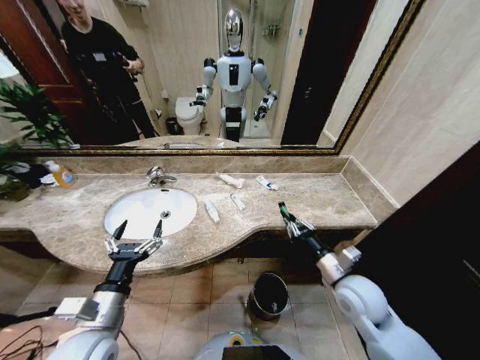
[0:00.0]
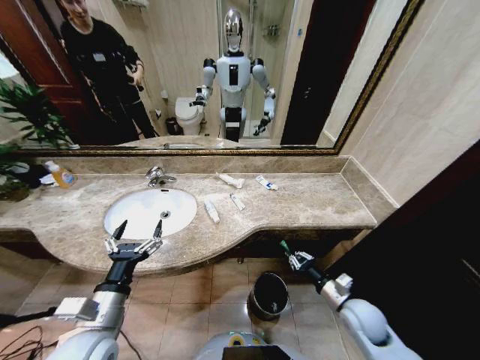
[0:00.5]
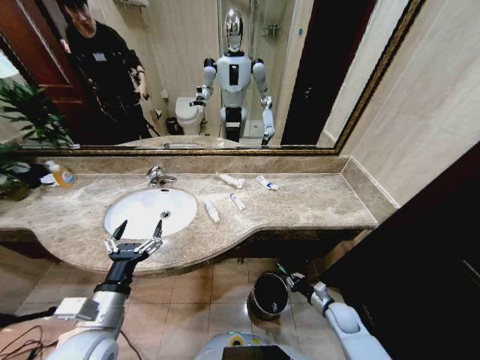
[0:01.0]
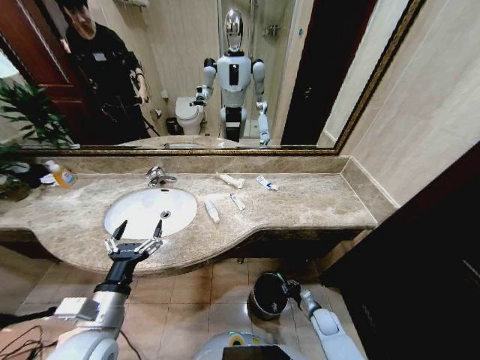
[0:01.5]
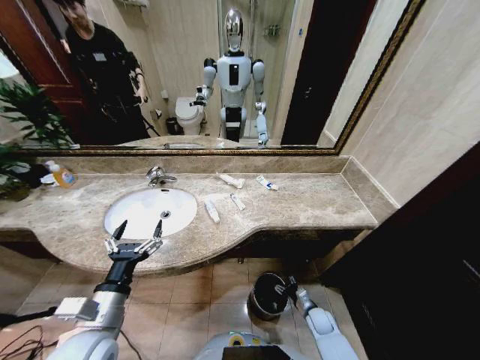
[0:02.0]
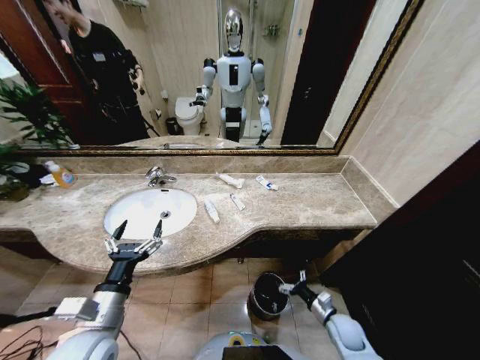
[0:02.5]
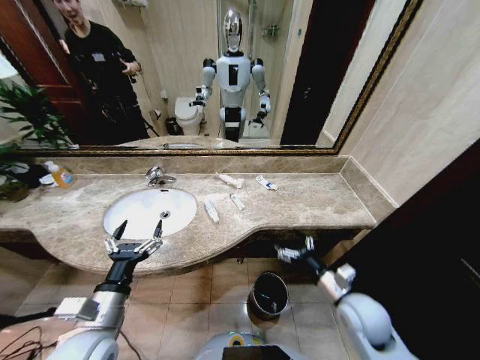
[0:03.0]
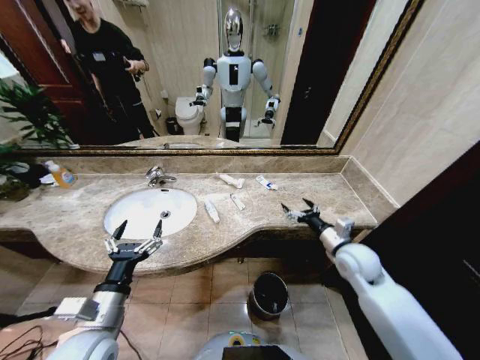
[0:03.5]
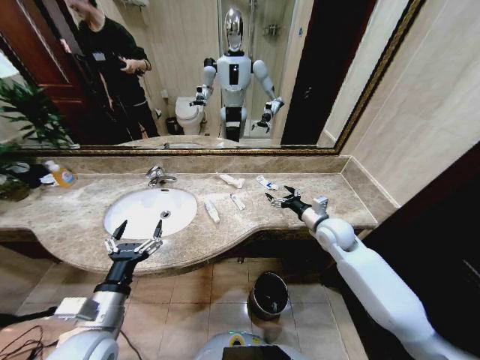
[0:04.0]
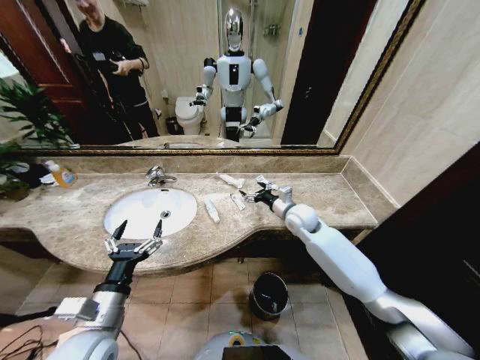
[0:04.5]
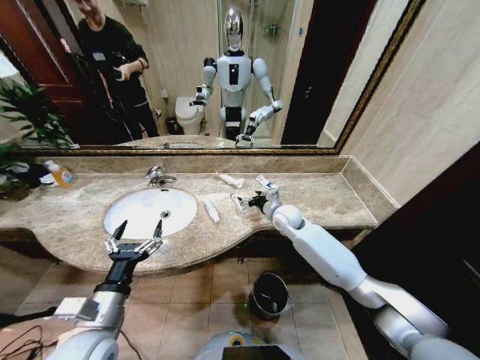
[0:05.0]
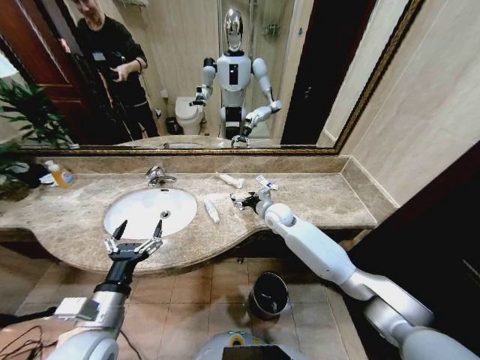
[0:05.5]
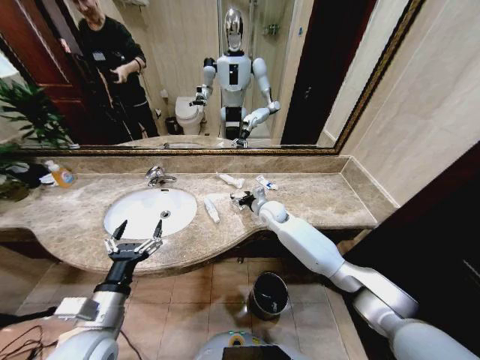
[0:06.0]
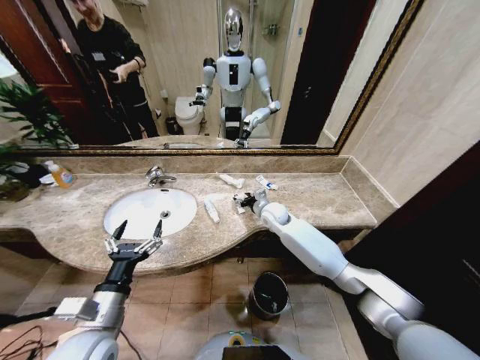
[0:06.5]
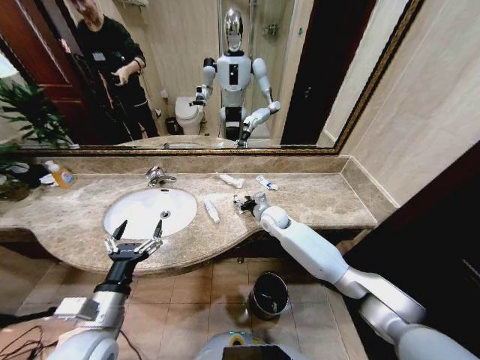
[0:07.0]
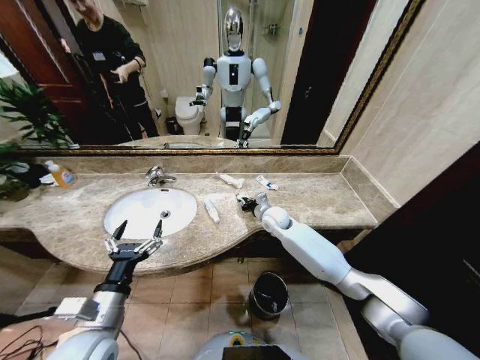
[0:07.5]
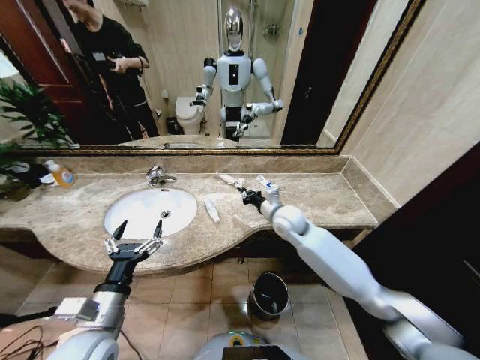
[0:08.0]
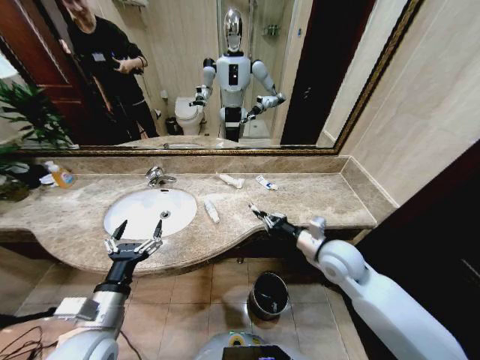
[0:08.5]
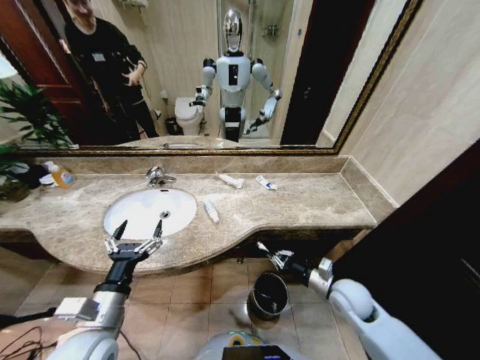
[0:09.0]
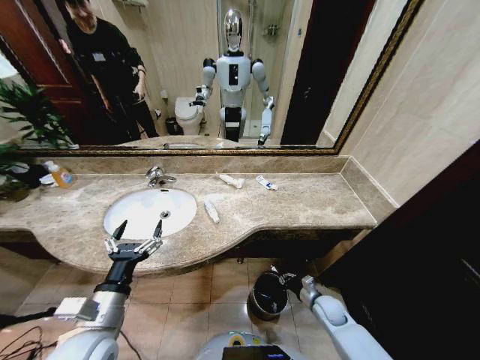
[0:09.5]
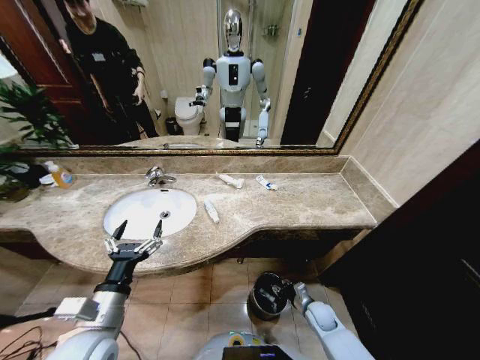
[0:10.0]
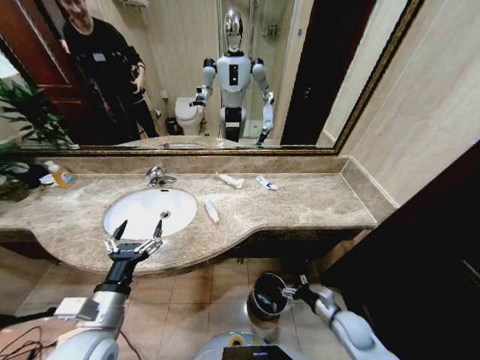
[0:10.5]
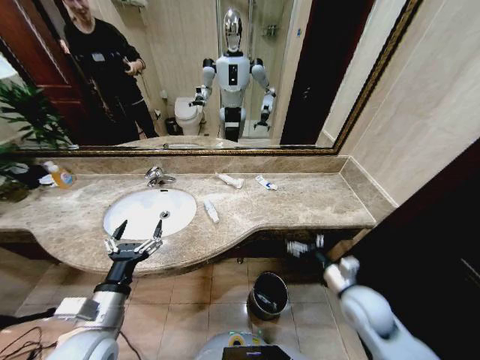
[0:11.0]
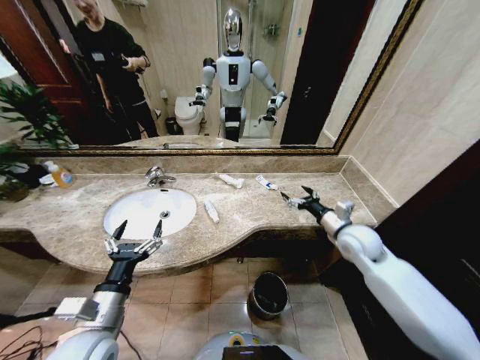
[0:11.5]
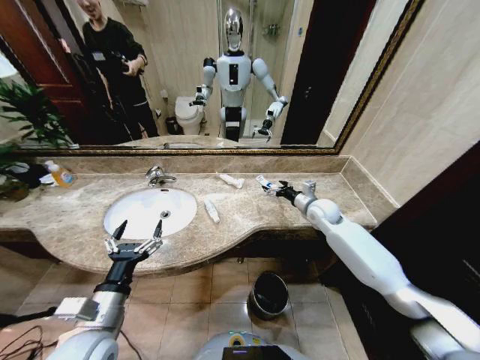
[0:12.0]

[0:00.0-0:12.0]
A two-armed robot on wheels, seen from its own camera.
Task of the whole recording: Pick up the trash from the sink and place it in the trash bin.
0:00.0 to 0:02.0: The right gripper moves downward, some 35 cm, and opens its fingers.
0:02.0 to 0:04.0: The right gripper goes roughly 40 cm upward and forward, and opens its fingers.
0:04.0 to 0:06.0: The right gripper is displaced to the left and forward by roughly 20 cm.
0:06.0 to 0:08.0: The right gripper is displaced backward and upward by about 10 cm, and closes up.
0:08.0 to 0:10.0: The right gripper shifts about 40 cm downward, backward and to the right.
0:10.0 to 0:12.0: The right gripper travels upward and forward by roughly 40 cm, and opens its fingers.

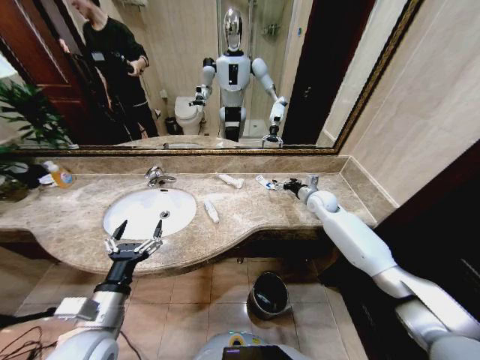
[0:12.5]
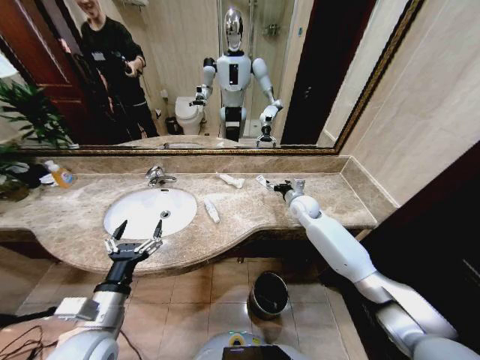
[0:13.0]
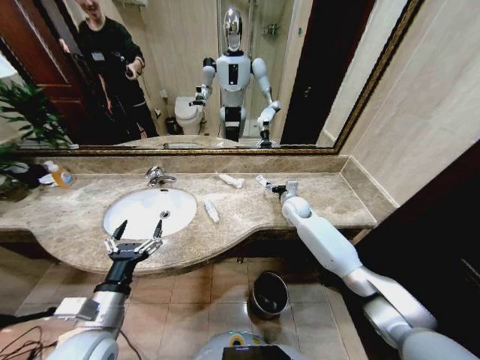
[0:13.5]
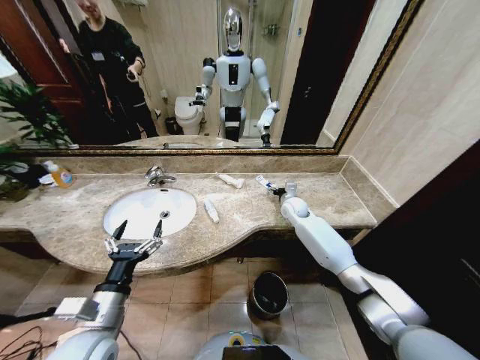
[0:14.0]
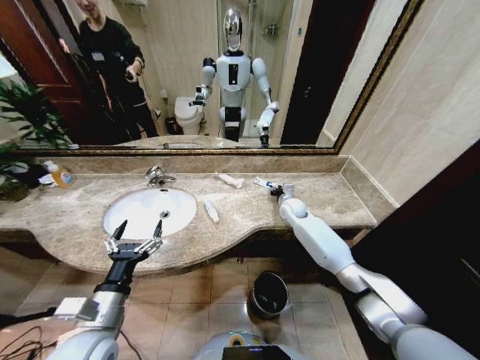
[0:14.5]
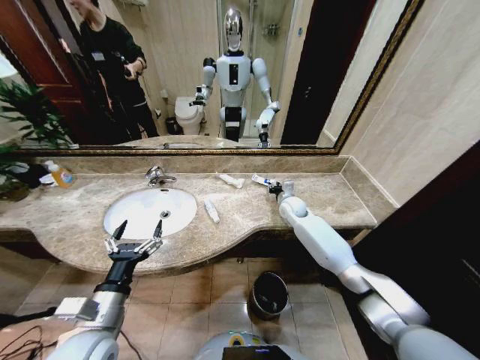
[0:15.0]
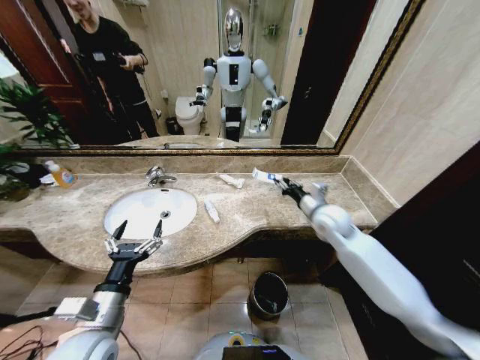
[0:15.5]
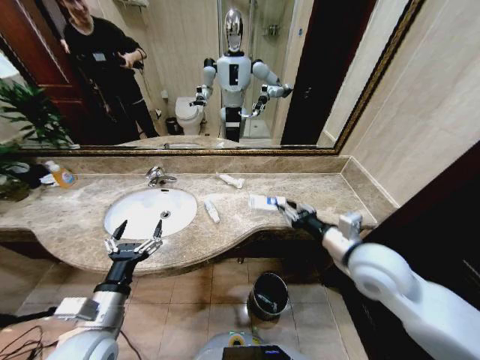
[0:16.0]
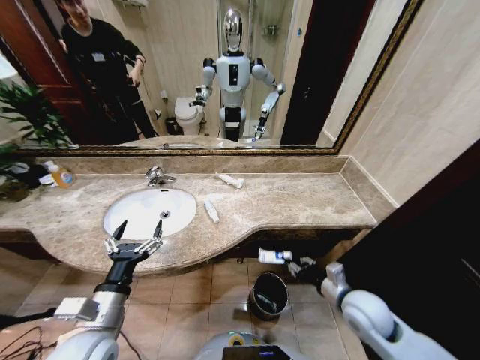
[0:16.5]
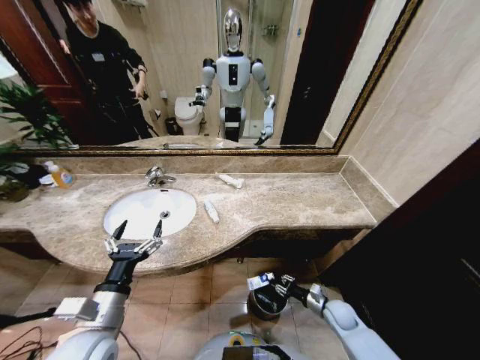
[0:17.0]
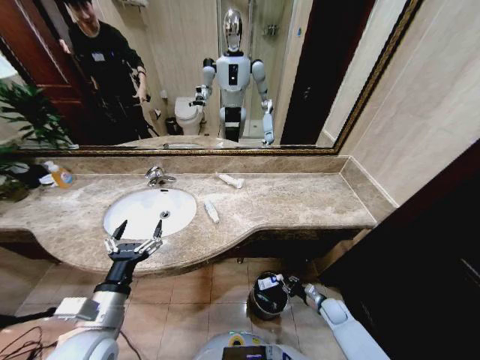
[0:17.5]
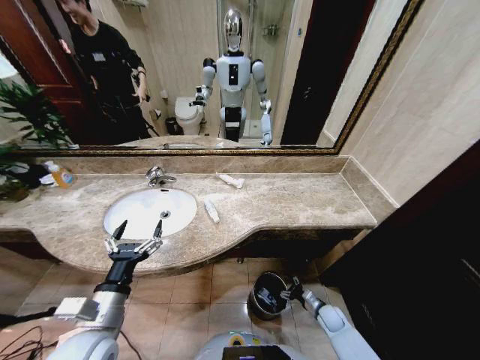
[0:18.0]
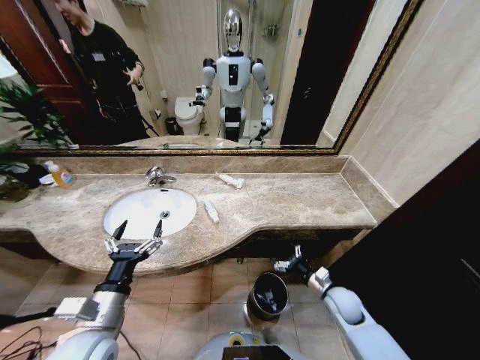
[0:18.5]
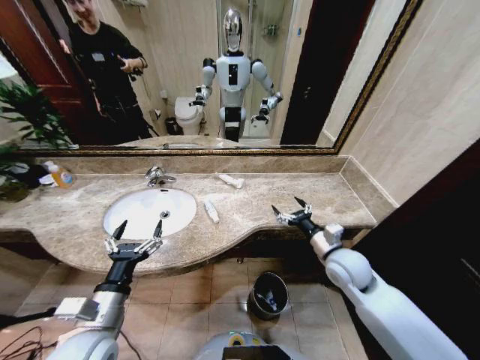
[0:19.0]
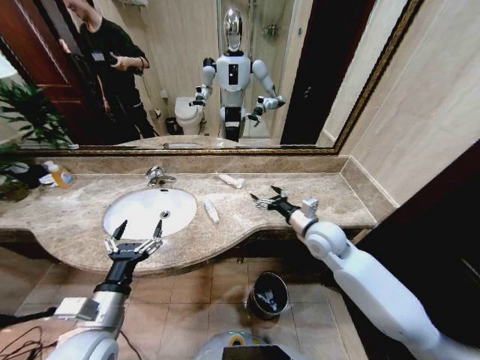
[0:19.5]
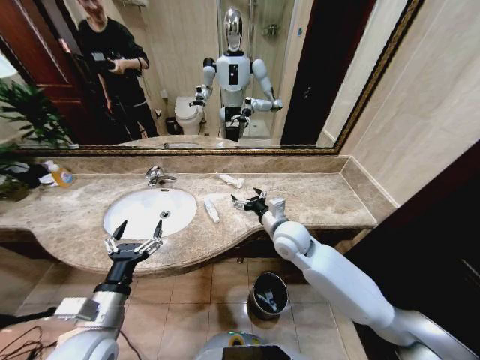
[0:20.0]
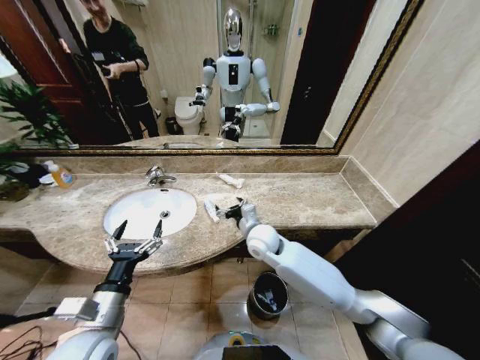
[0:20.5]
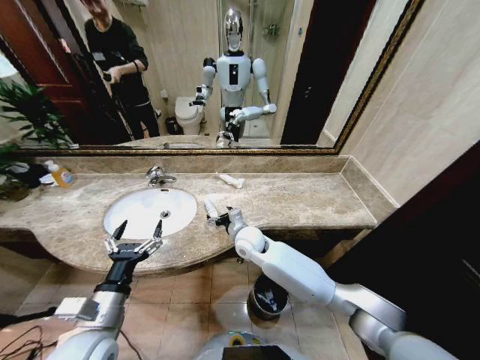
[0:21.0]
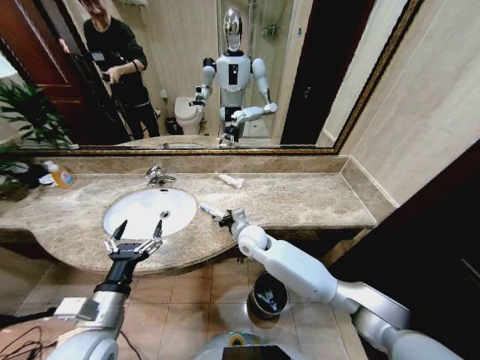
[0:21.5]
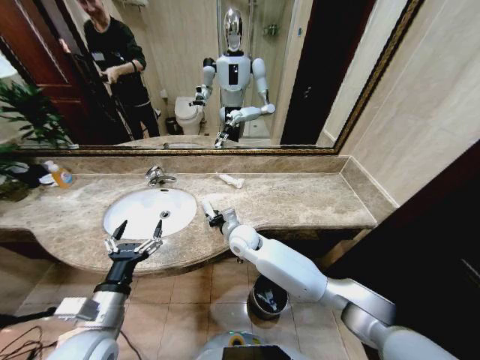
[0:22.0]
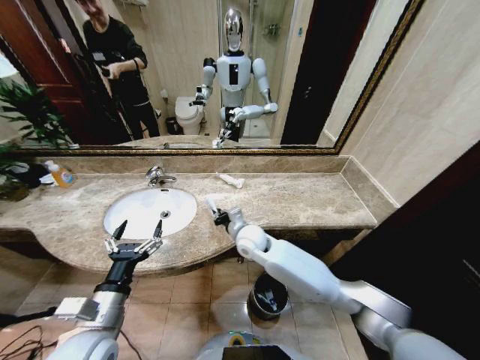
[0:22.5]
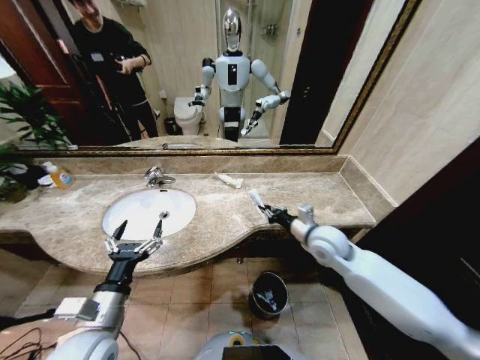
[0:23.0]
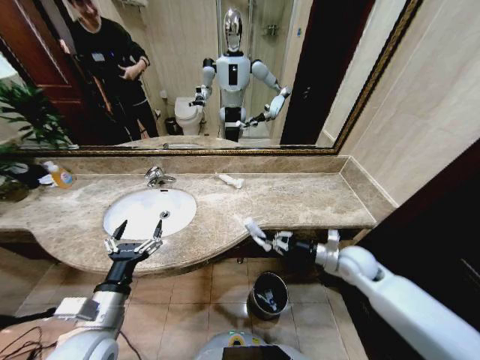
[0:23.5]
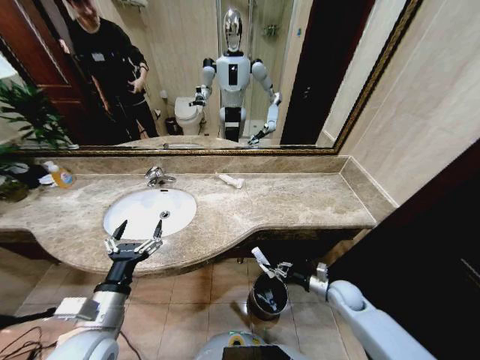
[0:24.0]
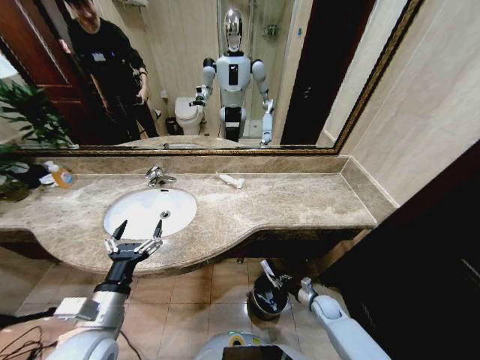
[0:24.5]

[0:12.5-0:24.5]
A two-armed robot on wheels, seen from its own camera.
Task of the whole recording: Pick up the trash from the sink and place it in the trash bin.
0:12.5 to 0:14.5: The right gripper shifts about 10 cm to the left and downward, and closes its fingers.
0:14.5 to 0:16.5: The right gripper heads backward, covering some 35 cm.
0:16.5 to 0:18.5: The right gripper heads forward, covering roughly 5 cm, moves about 25 cm downward and comes back, and opens its fingers.
0:18.5 to 0:20.5: The right gripper goes about 30 cm to the left, upward and forward.
0:20.5 to 0:22.5: The right gripper closes its fingers.
0:22.5 to 0:24.5: The right gripper shifts about 40 cm downward, to the right and backward.

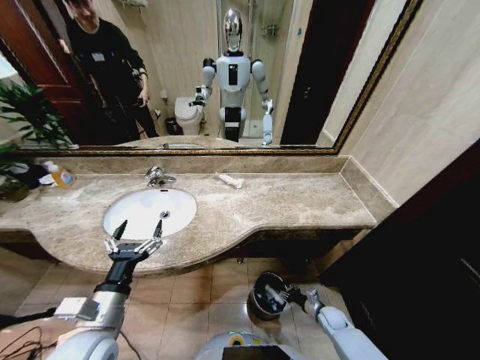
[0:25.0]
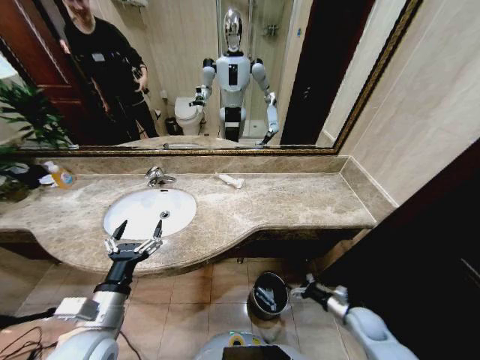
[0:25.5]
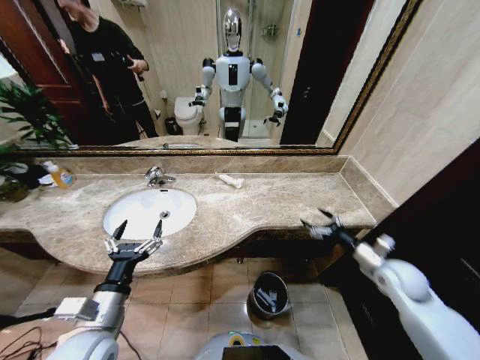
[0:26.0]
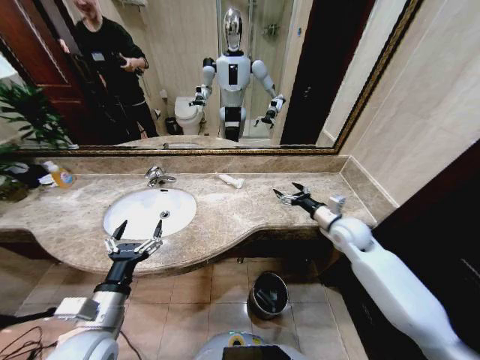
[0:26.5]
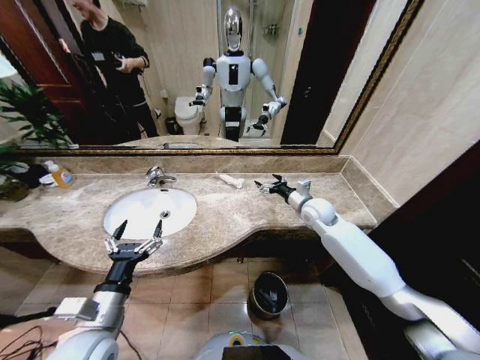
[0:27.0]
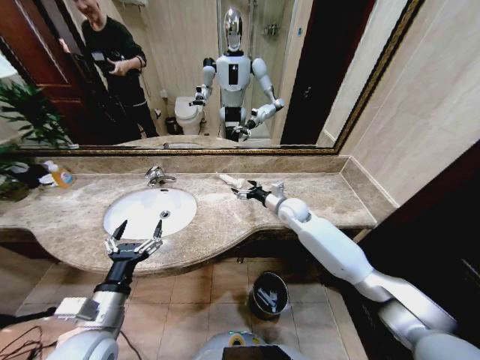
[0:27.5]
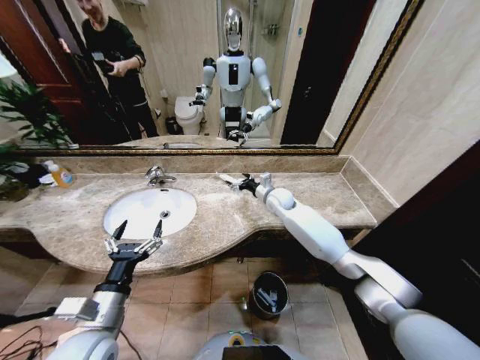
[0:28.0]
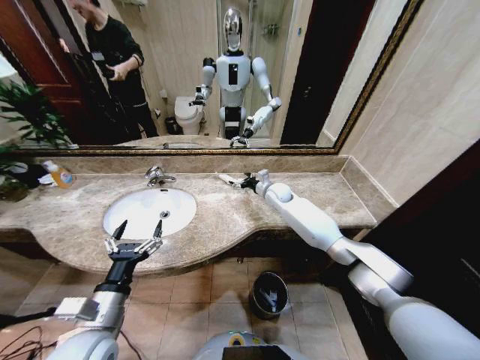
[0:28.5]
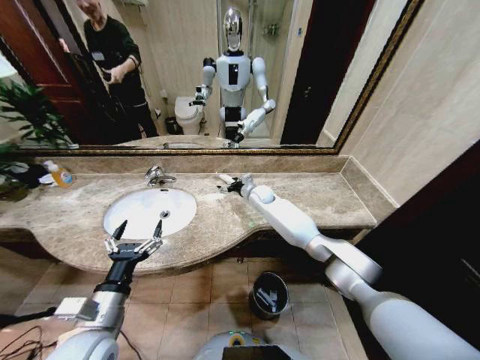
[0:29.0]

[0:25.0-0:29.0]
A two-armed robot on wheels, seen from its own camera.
Task of the whole recording: Pick up the trash from the sink and place it in the trash bin.
0:25.0 to 0:27.0: The right gripper goes some 40 cm upward and forward, and opens its fingers.
0:27.0 to 0:29.0: The right gripper heads to the left and forward, covering approximately 20 cm.
